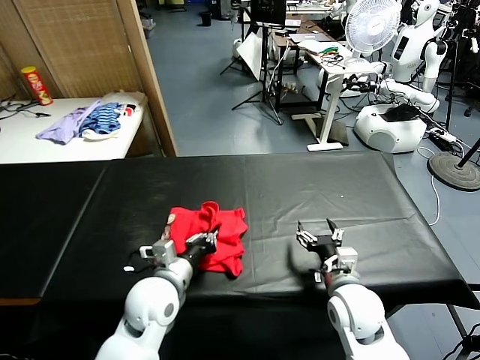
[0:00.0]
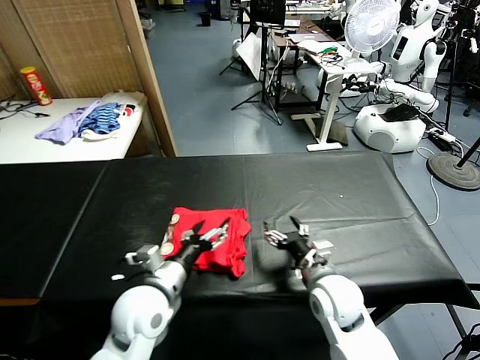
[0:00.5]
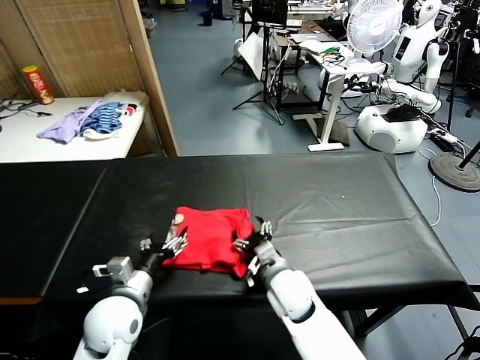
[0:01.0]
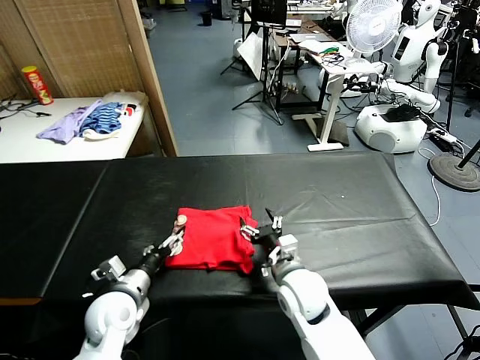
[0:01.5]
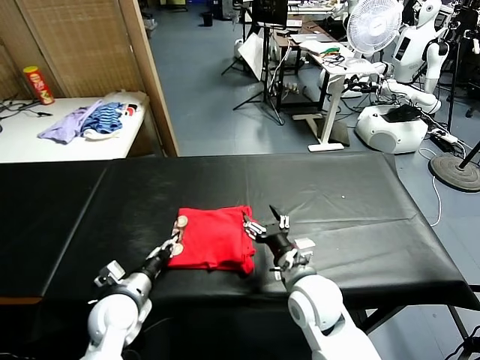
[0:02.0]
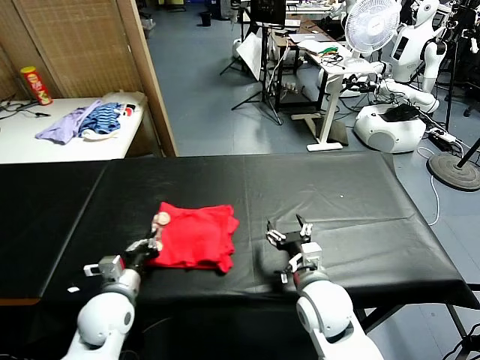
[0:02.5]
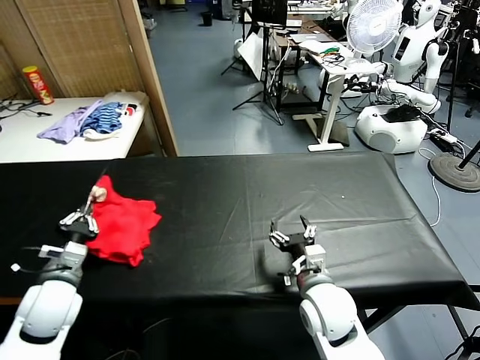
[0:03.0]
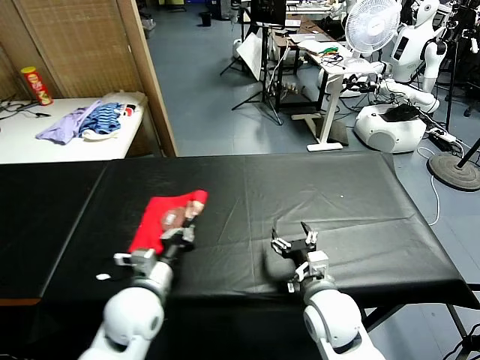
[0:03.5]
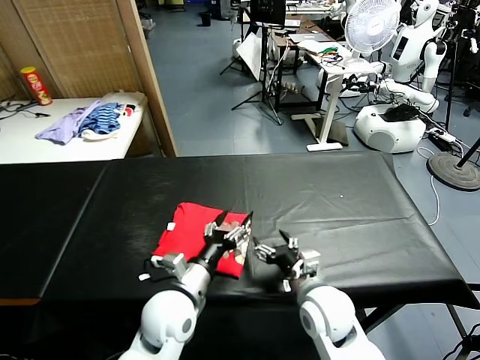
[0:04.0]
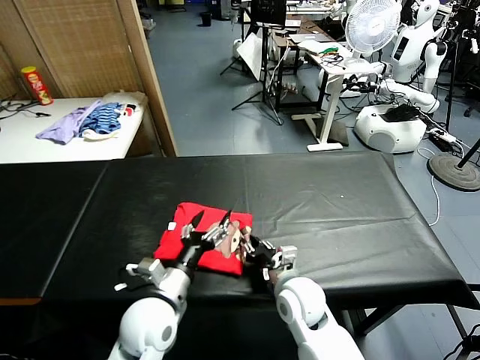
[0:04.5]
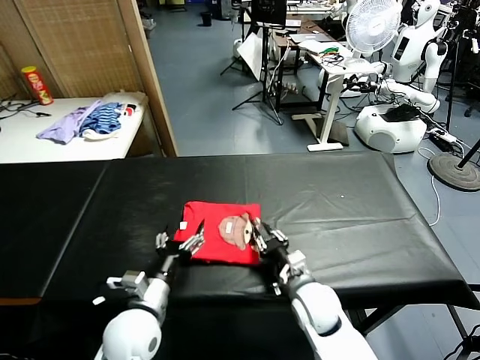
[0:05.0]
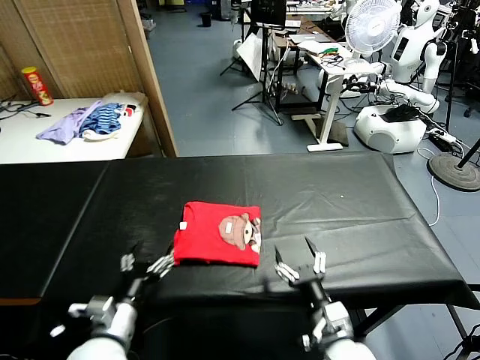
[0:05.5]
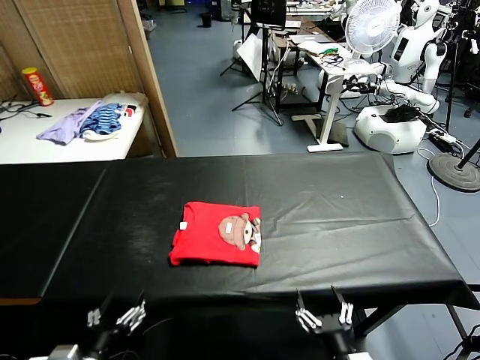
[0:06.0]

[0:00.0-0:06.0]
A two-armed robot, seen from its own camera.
Task of the whole recording: fold and organize the clothes.
Step, 0:00.5 to 0:03.5: Flip the folded clothes over with left gripper.
Step, 0:04.0 to 0:05.0: Drag the clothes to the center of the table.
0:00.0 to 0:02.0: The right gripper goes roughly 10 cm to the left; the left gripper moves to the left and downward, about 10 cm, and opens, then closes once more.
0:02.0 to 0:04.0: The left gripper moves to the right and upward, approximately 15 cm, and opens.
0:04.0 to 0:06.0: The right gripper moves backward, some 20 cm, and closes, then reopens, while the left gripper travels backward and to the left by roughly 20 cm.
